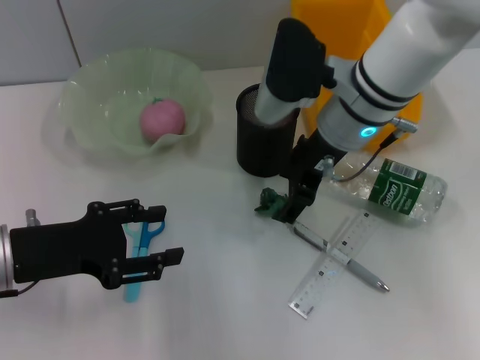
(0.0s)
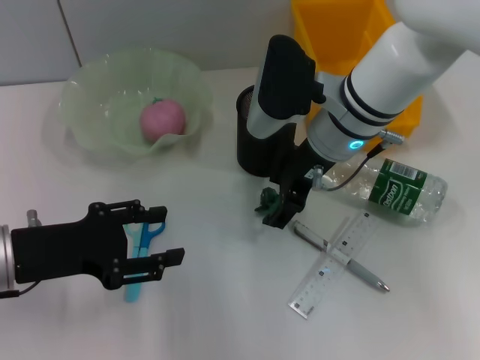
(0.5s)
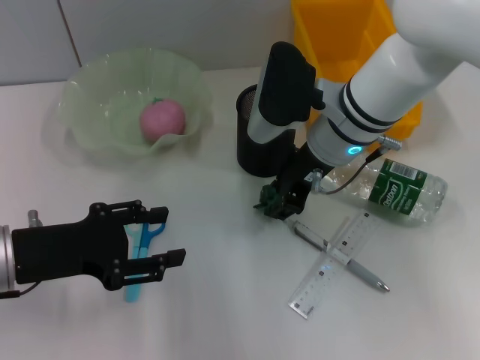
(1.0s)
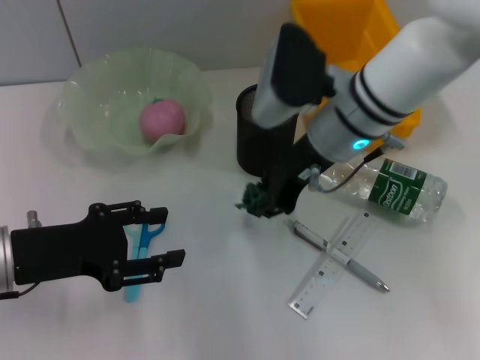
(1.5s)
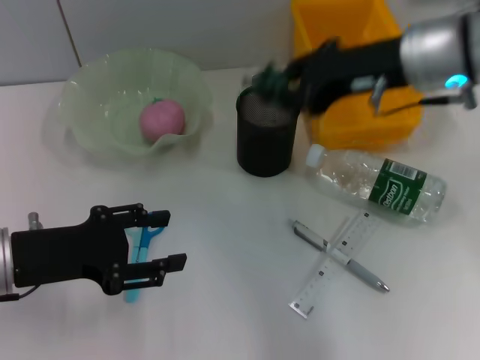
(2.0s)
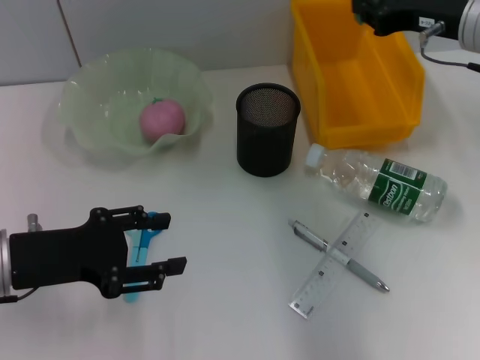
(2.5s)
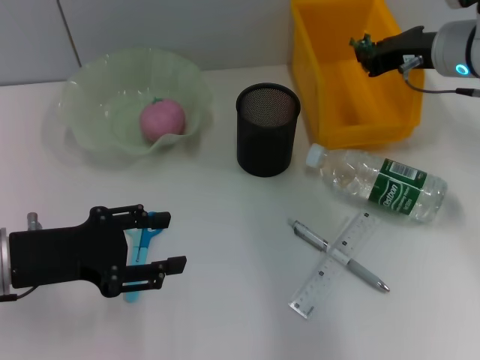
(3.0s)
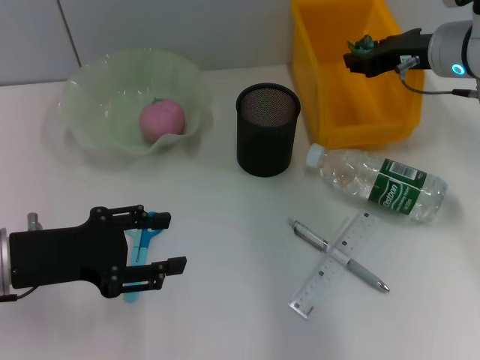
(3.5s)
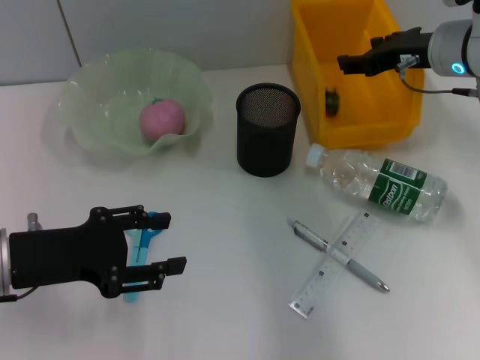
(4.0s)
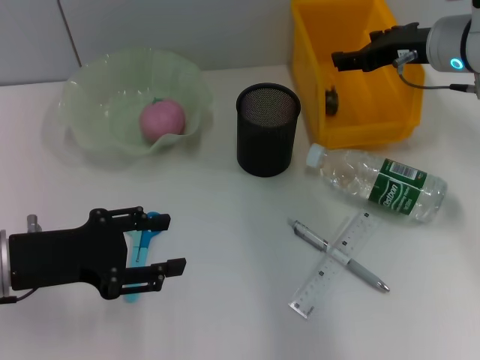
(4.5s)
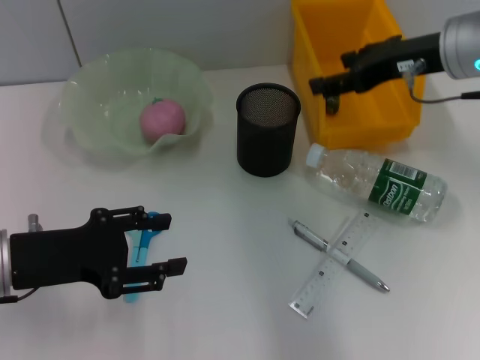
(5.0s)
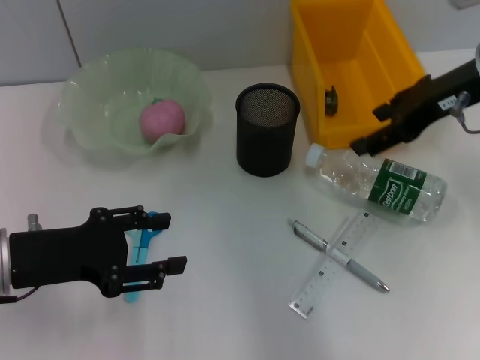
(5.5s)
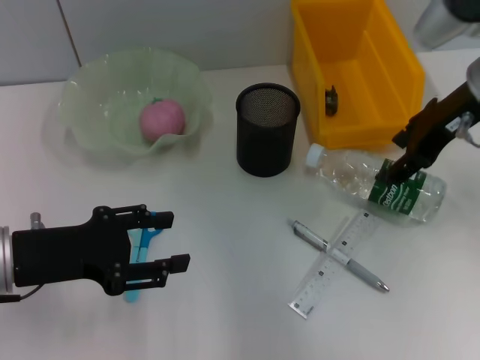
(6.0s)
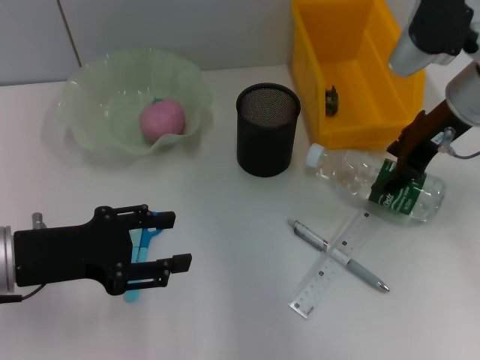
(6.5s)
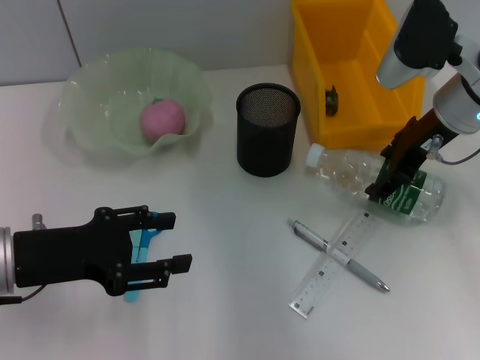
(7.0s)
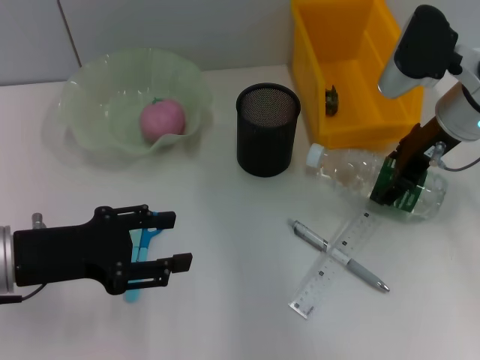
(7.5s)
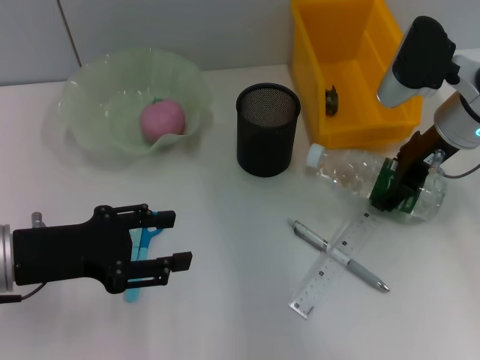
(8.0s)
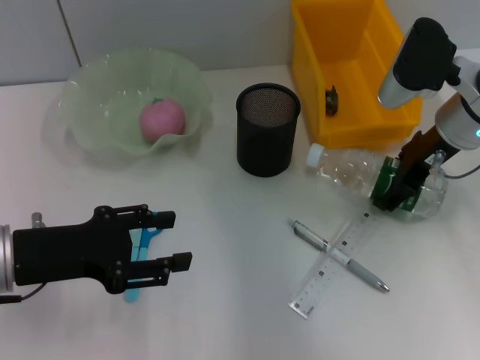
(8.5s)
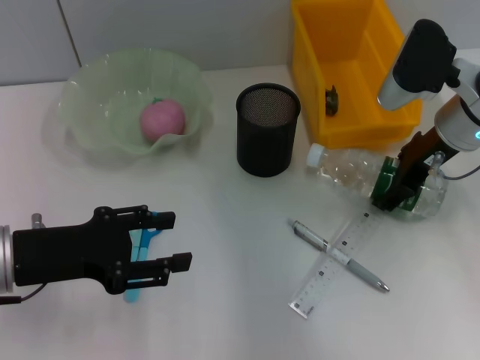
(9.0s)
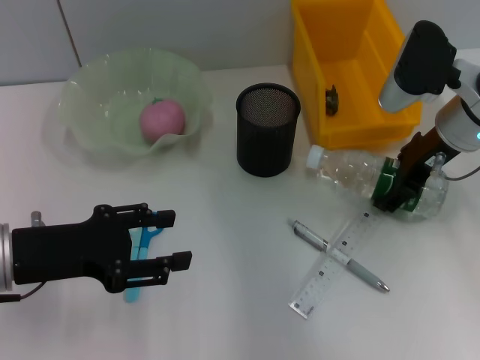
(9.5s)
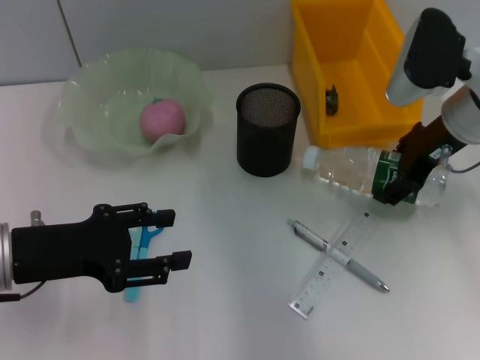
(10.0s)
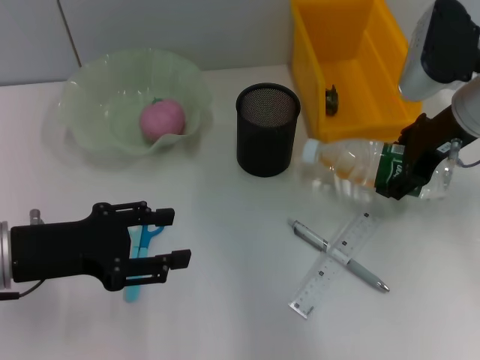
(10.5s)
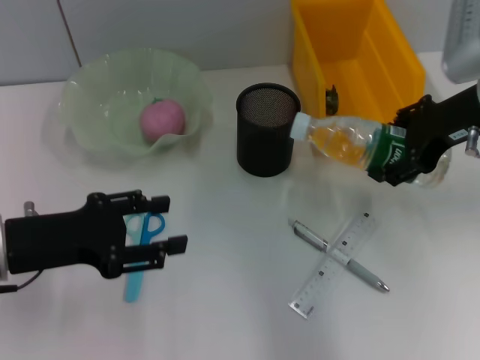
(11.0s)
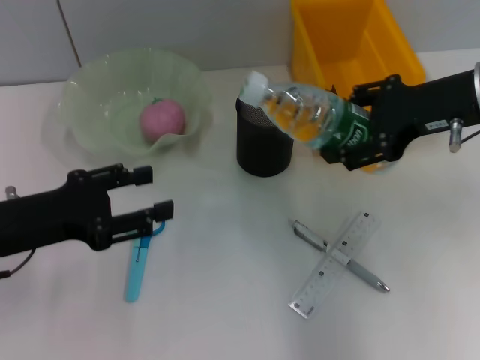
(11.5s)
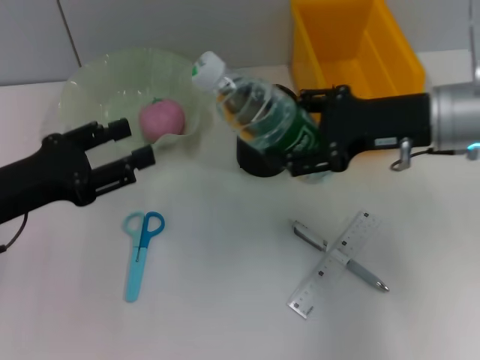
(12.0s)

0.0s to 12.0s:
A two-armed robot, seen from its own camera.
Step, 1.5s to 3.5s: Place the plastic into the trash can with the right hand.
Step, 4.0s to 8.5s: Grab the water bottle with the right hand.
0.0s to 2.0s: The right gripper travels to the right and upward by some 10 cm, and closes its fingers.
2.0s to 4.0s: The right gripper moves forward and downward, approximately 10 cm, and opens up.
4.0s to 6.0s: The right gripper shifts by some 5 cm.
6.0s to 8.0s: The right gripper heads downward, covering roughly 5 cm.
8.0s to 10.0s: There are only small adjustments of the grippers.

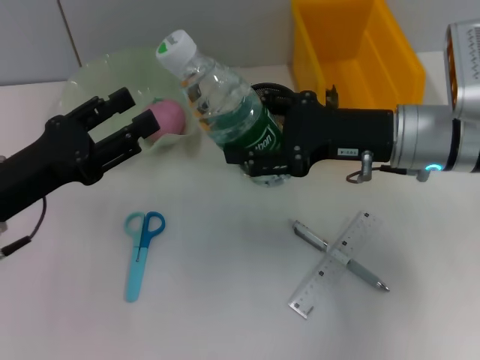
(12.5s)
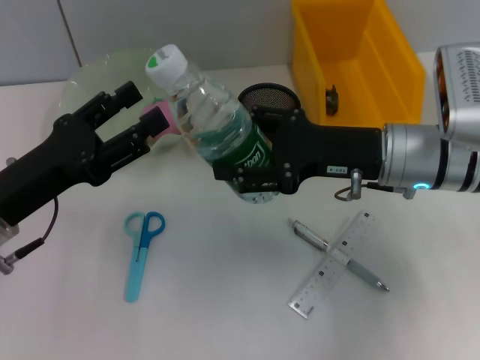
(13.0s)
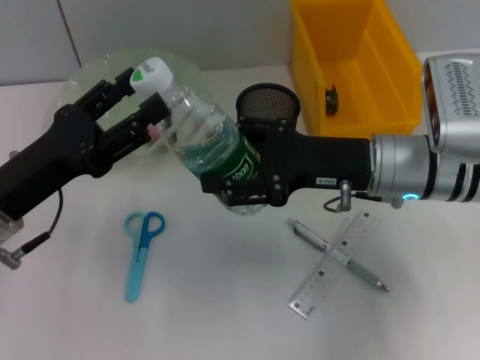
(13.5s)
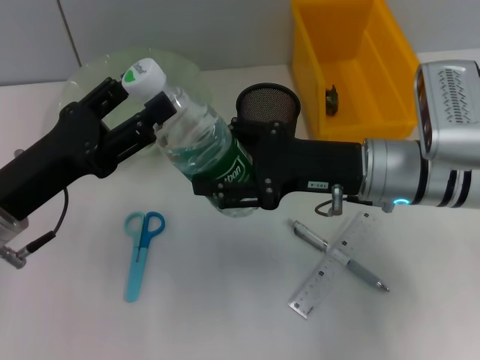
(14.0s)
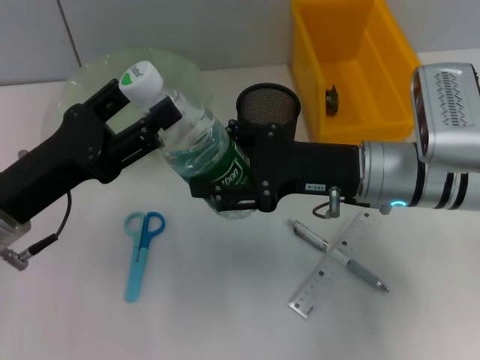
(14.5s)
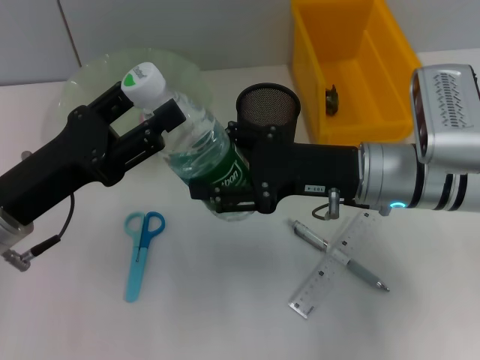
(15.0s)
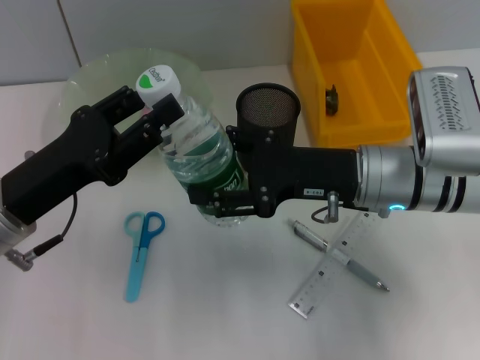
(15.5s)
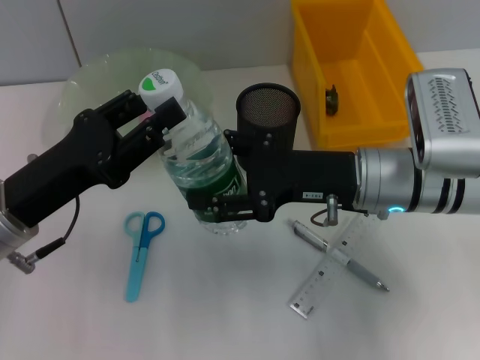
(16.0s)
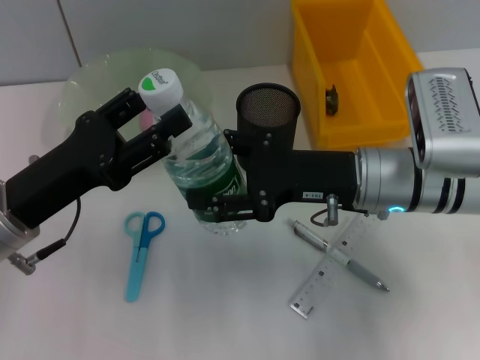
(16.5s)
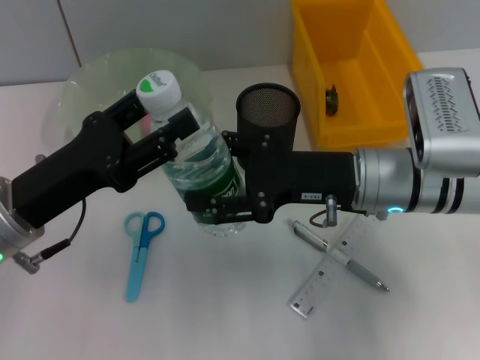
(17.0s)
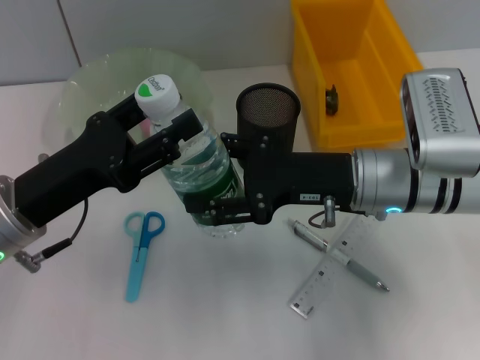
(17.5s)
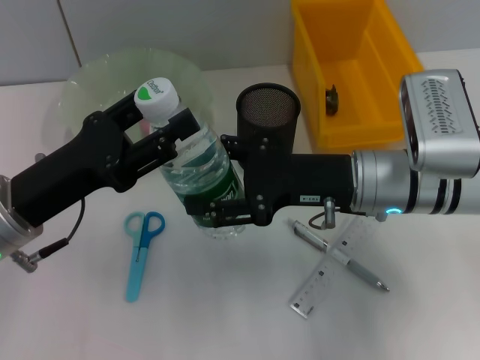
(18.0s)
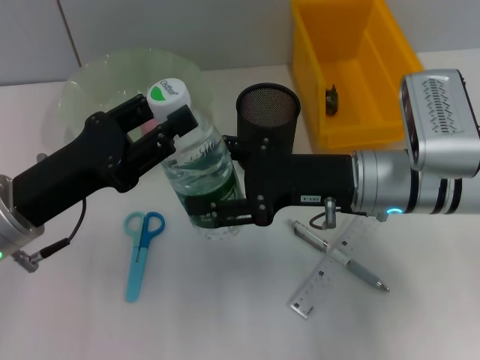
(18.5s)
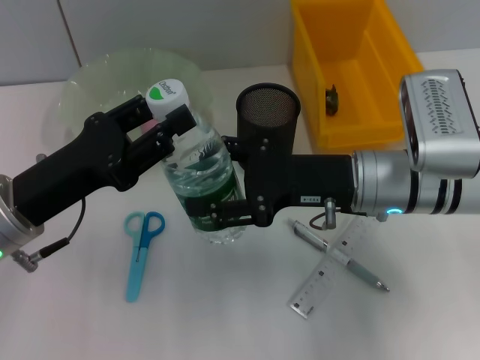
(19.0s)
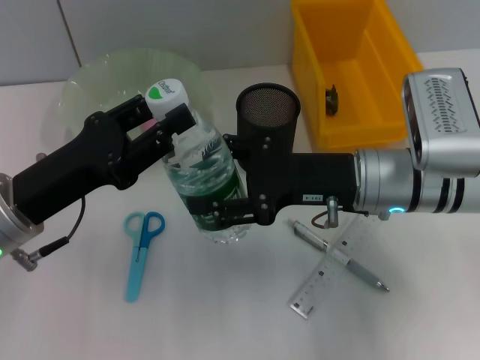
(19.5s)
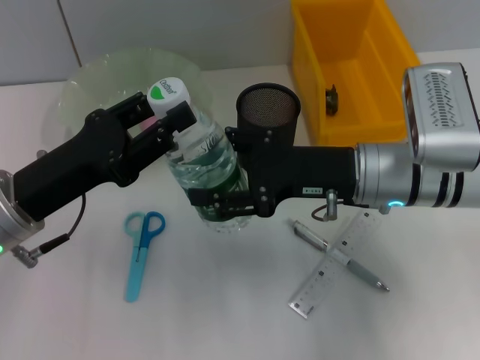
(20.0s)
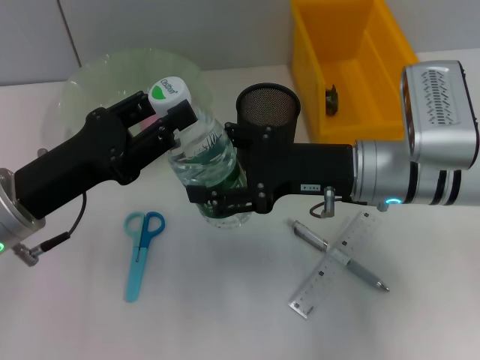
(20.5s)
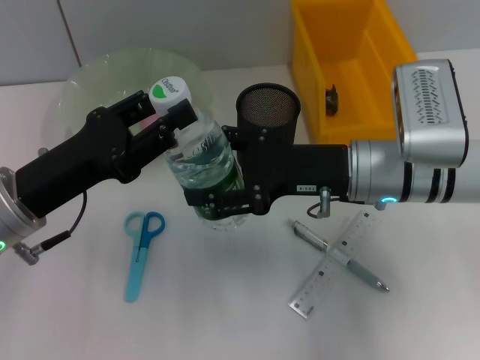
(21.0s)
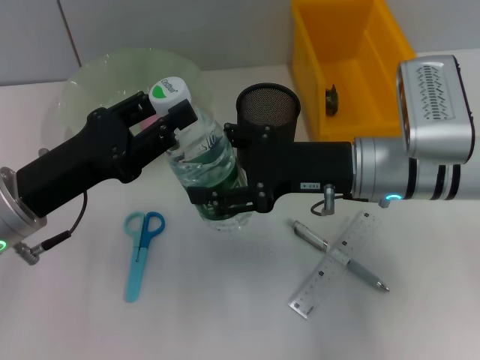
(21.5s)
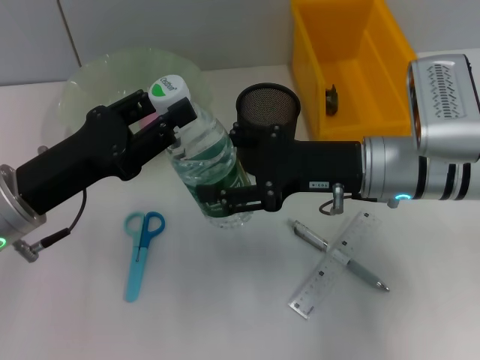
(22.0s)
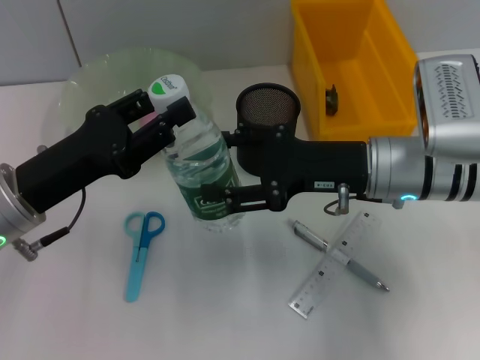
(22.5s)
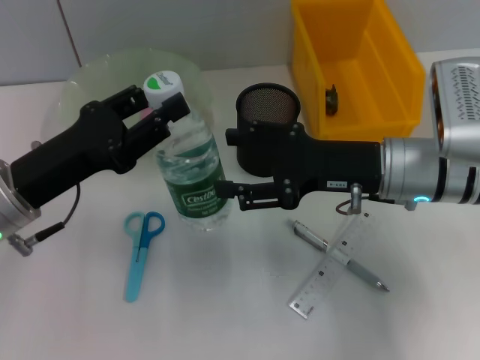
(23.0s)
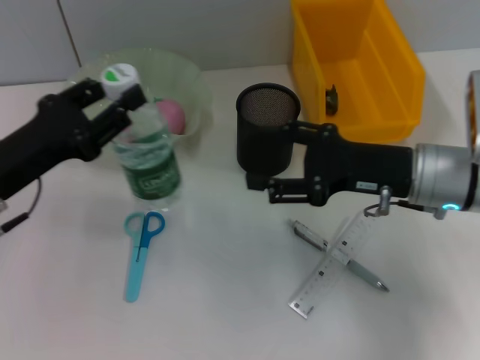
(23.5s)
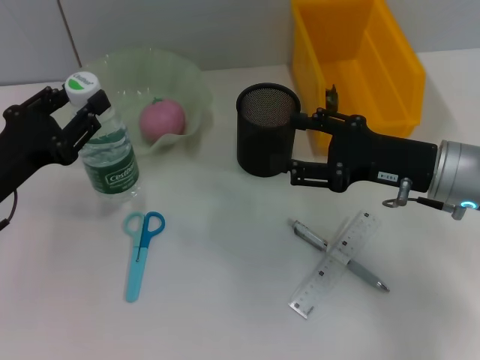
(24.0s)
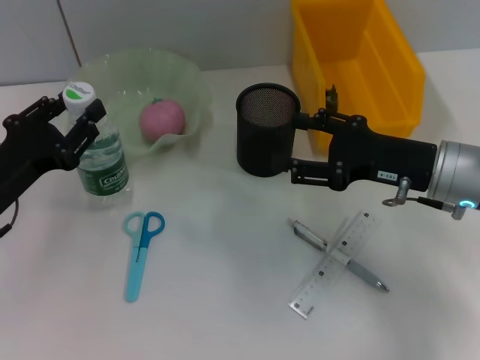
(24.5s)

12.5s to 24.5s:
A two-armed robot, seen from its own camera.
Step, 12.5s to 22.5s: Pass the water bottle from the right hand to the left hand.
14.5s to 16.5s: The left gripper closes its fingers.
16.5s to 18.5s: Both grippers stay put.
18.5s to 20.5s: The left gripper closes up.
20.5s to 22.5s: Both grippers stay about where they are.
22.5s to 24.5s: The left gripper changes place by roughly 5 cm, while the right gripper shifts approximately 5 cm to the right.

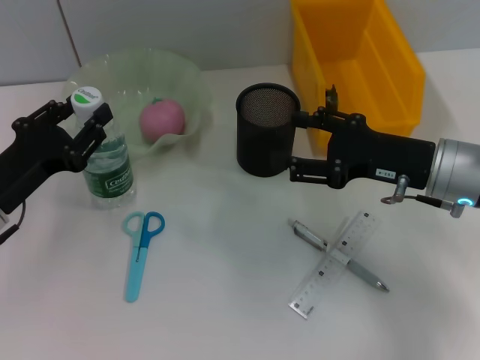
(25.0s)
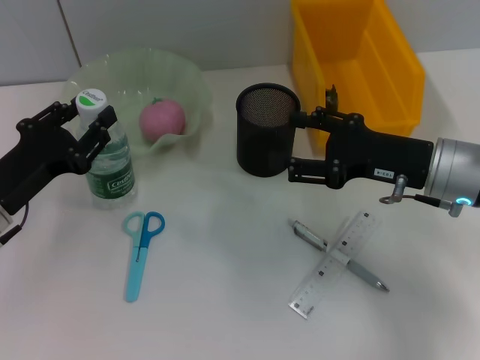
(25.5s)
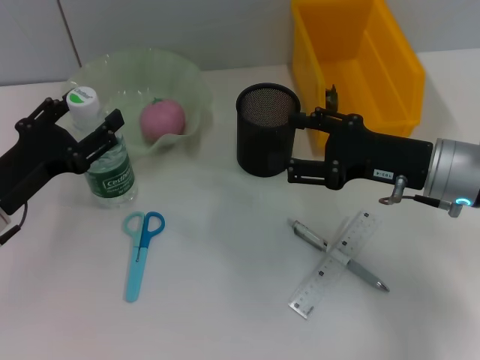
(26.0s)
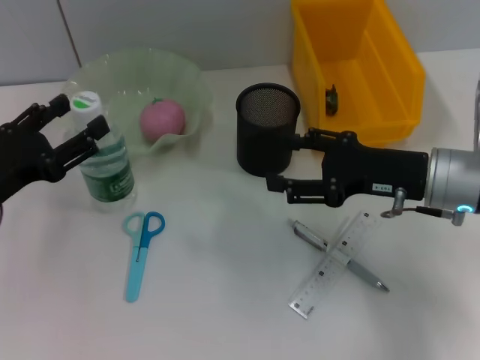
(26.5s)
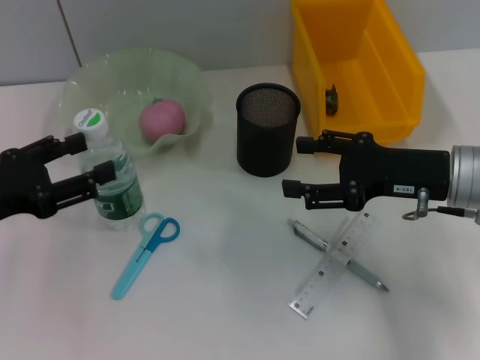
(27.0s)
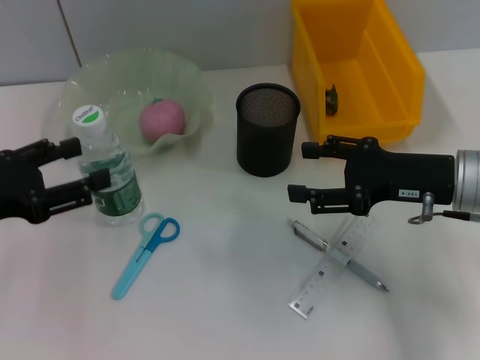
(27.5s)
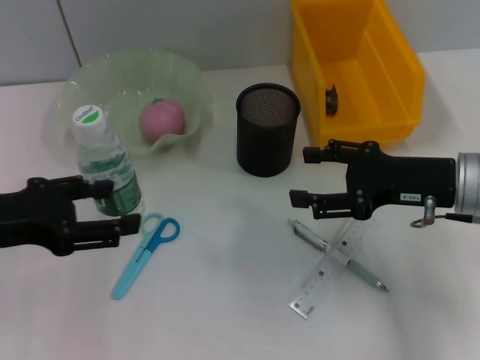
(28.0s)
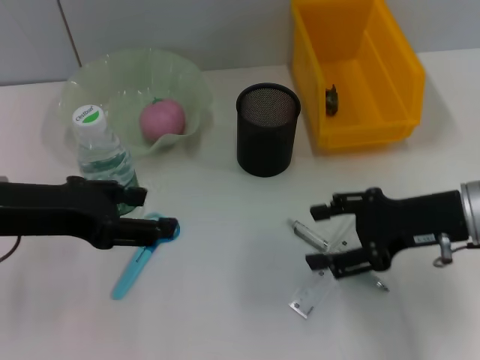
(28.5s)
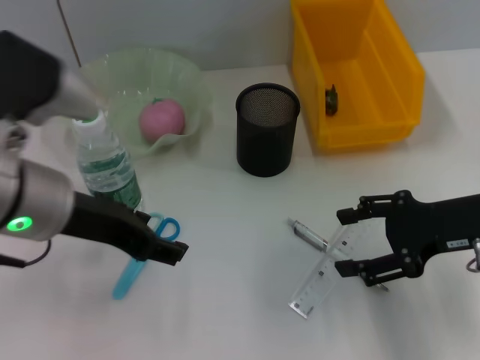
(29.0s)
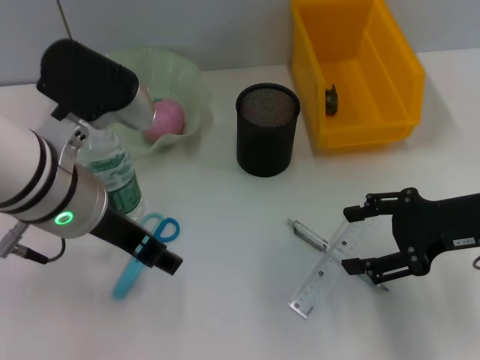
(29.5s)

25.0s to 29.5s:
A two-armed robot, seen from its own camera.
25.0s to 27.0s: The left gripper heads upward, covering some 5 cm, and opens its fingers.
27.0s to 29.5s: The left gripper moves to the right, roughly 15 cm.
